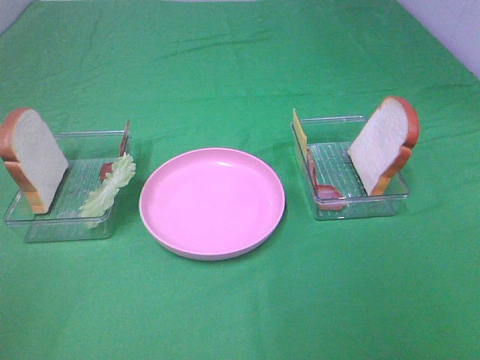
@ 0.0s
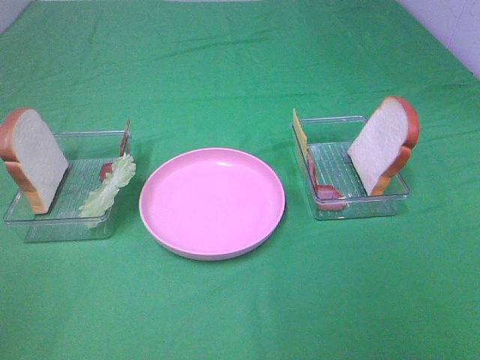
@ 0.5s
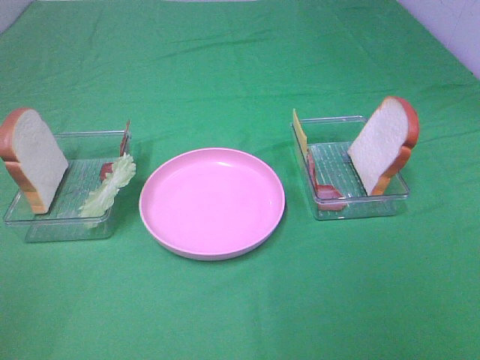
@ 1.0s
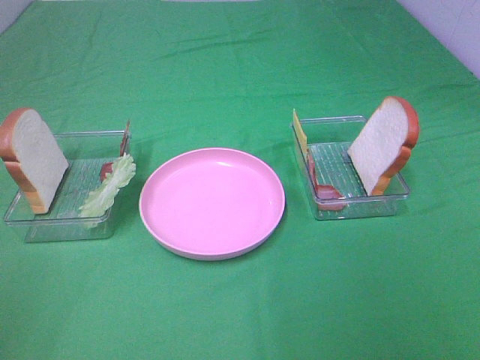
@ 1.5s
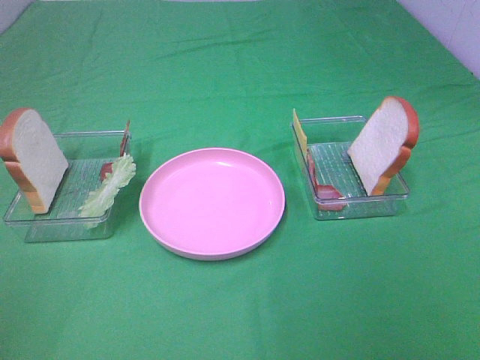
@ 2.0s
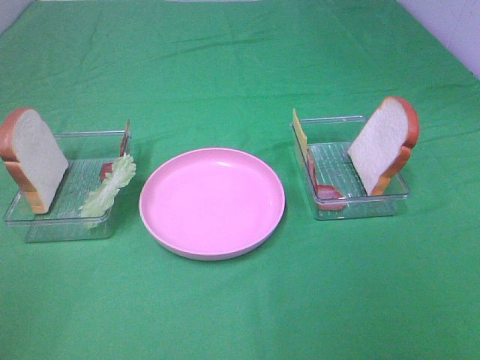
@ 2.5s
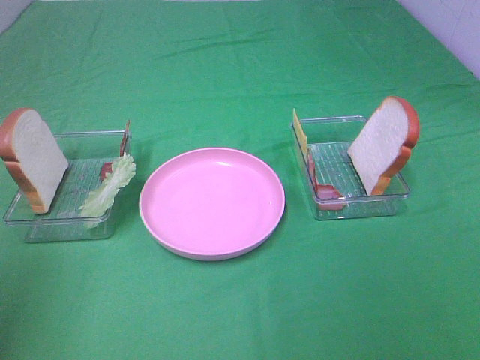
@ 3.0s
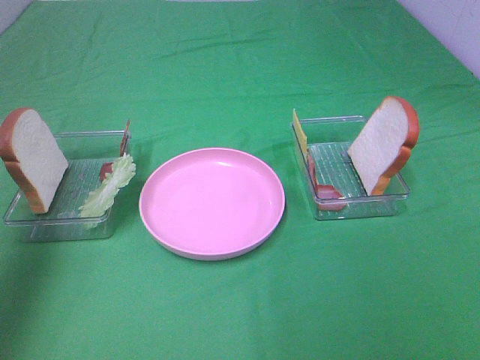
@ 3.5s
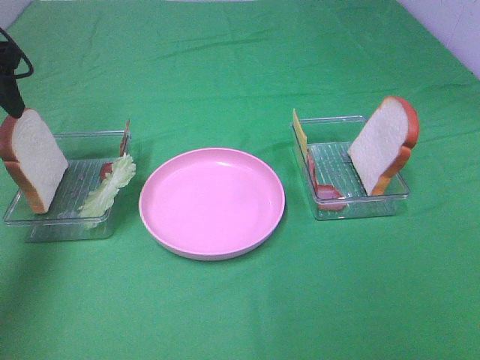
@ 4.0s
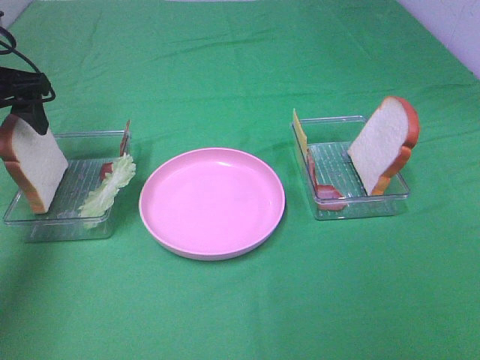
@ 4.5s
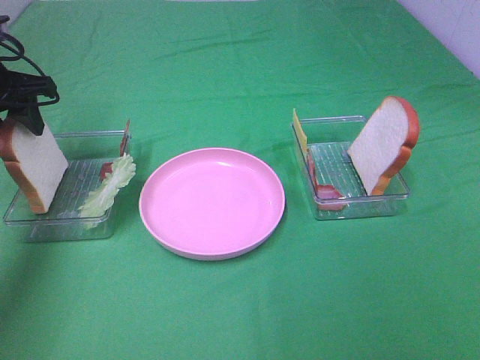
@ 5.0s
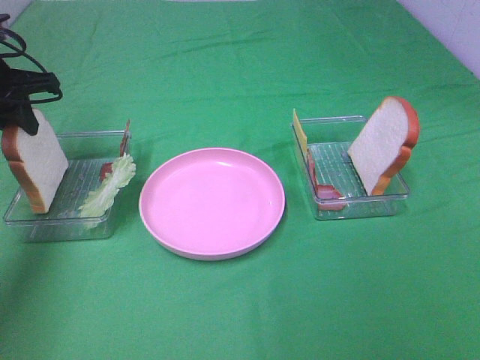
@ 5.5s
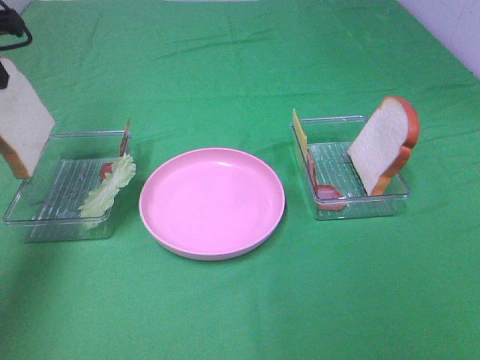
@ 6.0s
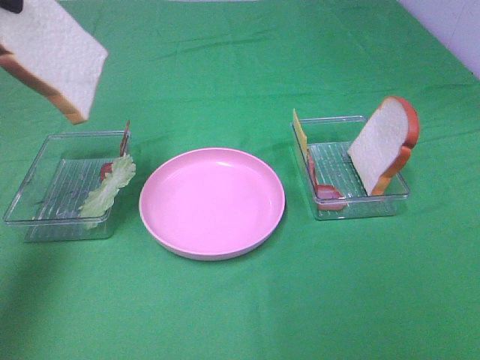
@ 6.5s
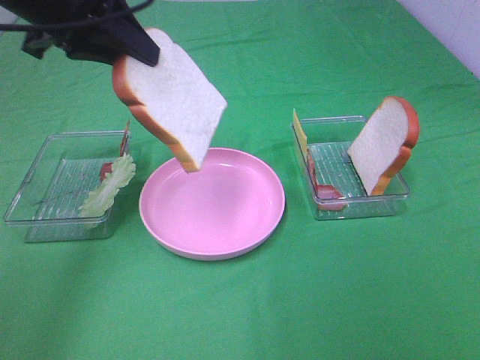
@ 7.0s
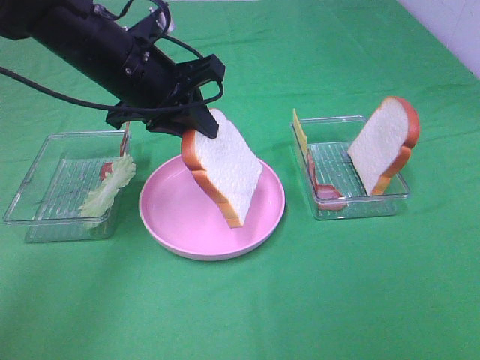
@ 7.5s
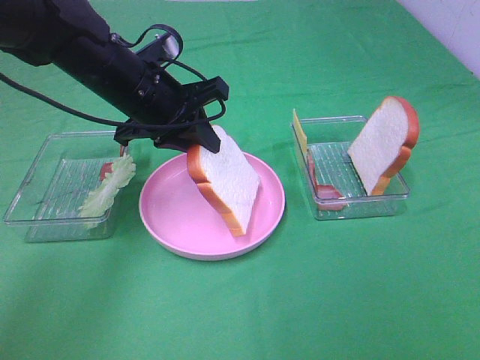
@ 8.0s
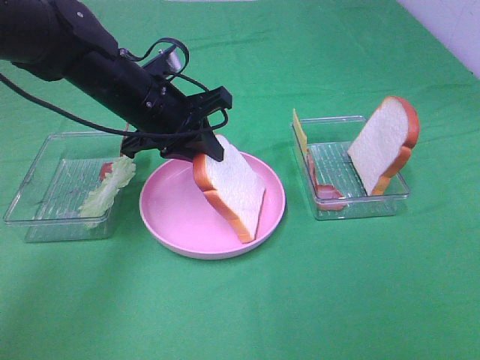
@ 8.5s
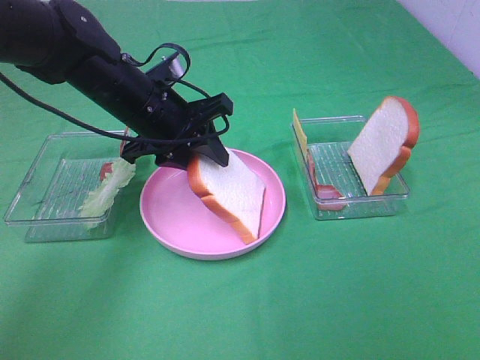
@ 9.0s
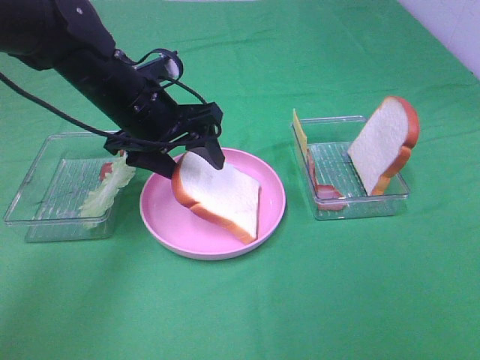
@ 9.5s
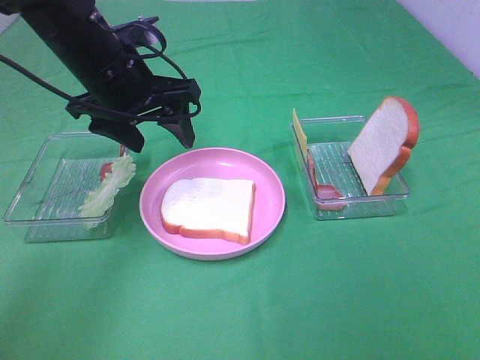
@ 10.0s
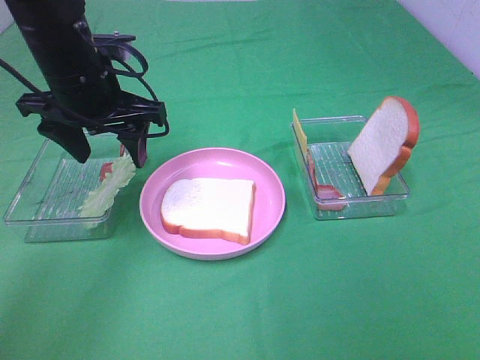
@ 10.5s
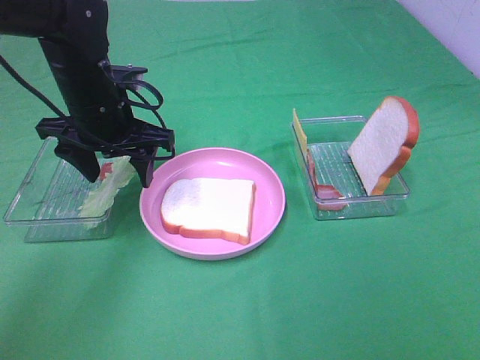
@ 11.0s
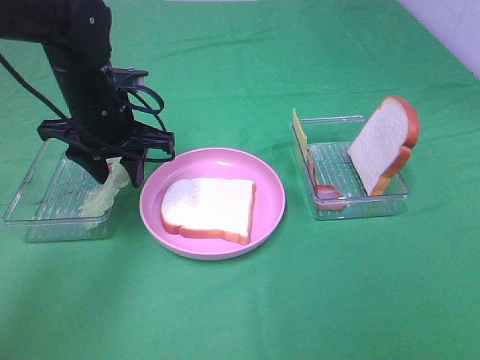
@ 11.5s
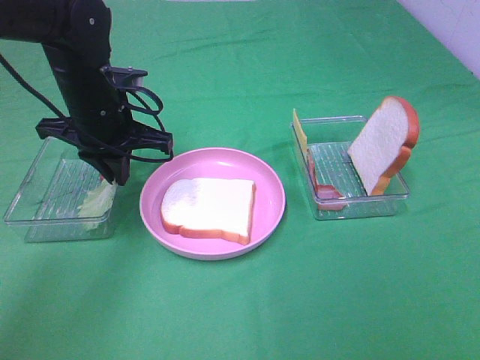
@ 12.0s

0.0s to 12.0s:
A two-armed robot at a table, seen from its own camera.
Task of the whole recording: Make sandwiches.
Step, 0.0s to 5.5s: Left hand:grab the bread slice.
Step, 6.0s to 9.5s: Left hand:place the bread slice on the plate.
0.0s to 2.0s: Both grippers stay put.
2.0s to 4.0s: The left gripper travels forward by approximately 35 cm.
4.0s to 6.0s: The left gripper moves about 5 cm downward and comes back, and closes its fingers.
6.0s to 8.0s: The left gripper is displaced to the right and downward by about 20 cm.
8.0s to 10.0s: The left gripper opens up.
10.0s to 12.0s: The left gripper shifts some 5 cm downward, and closes up.

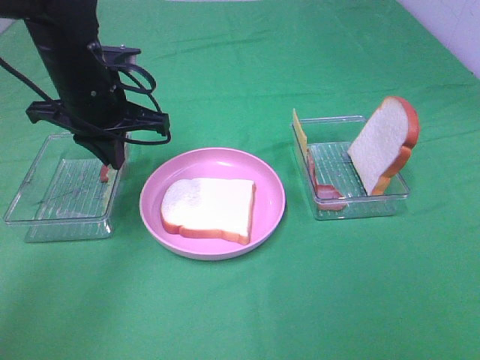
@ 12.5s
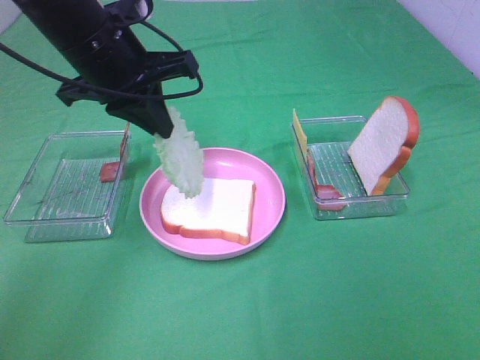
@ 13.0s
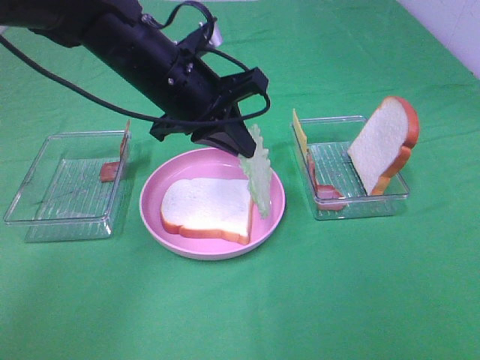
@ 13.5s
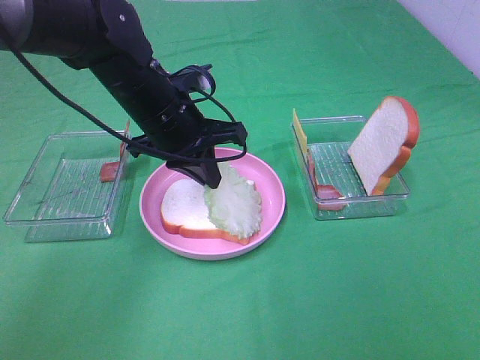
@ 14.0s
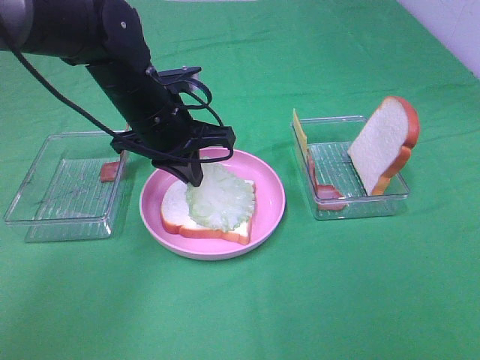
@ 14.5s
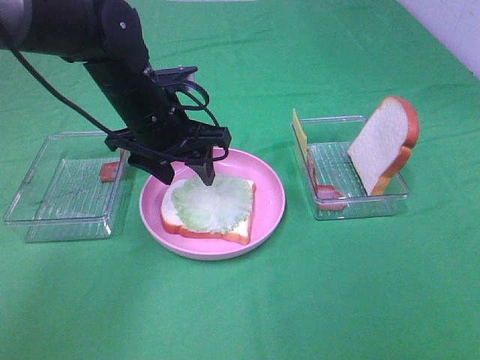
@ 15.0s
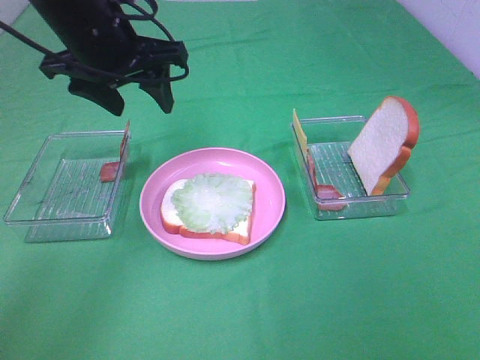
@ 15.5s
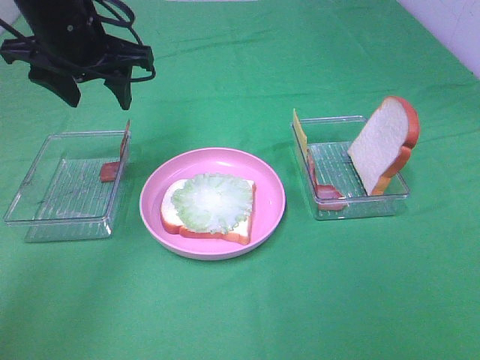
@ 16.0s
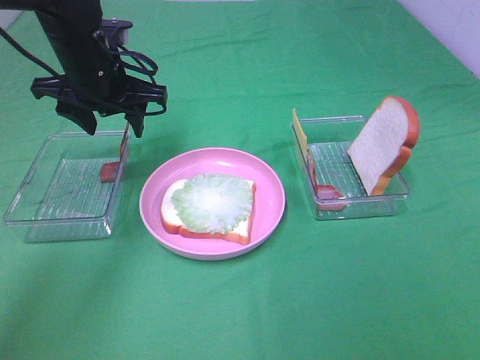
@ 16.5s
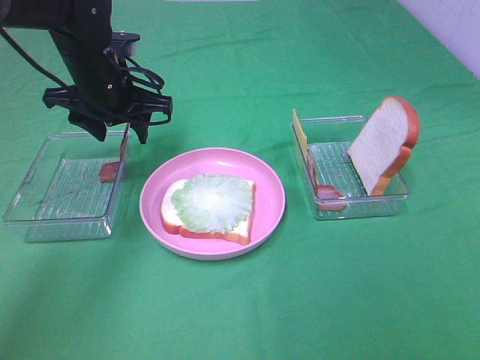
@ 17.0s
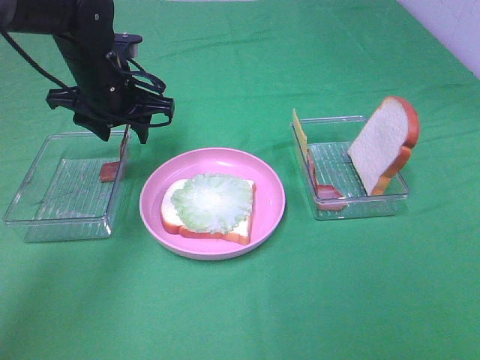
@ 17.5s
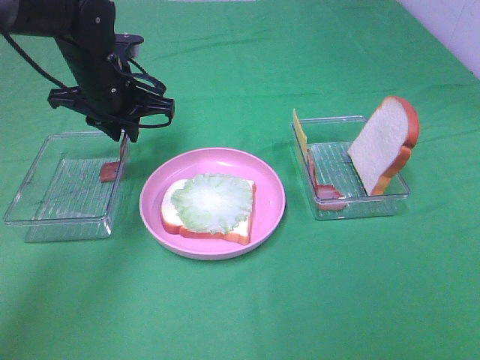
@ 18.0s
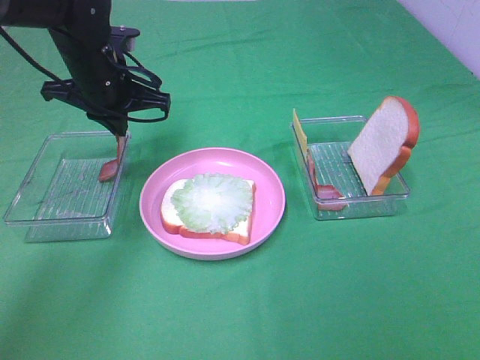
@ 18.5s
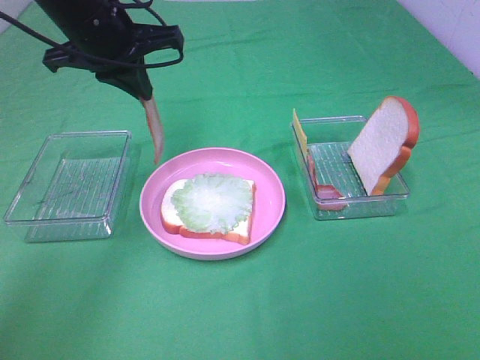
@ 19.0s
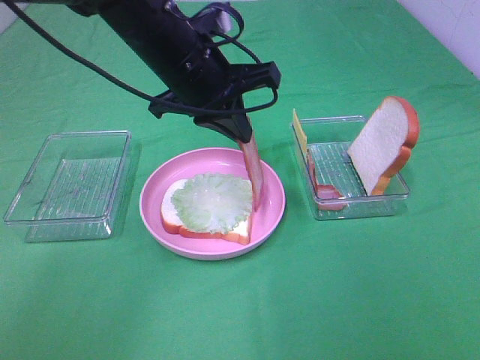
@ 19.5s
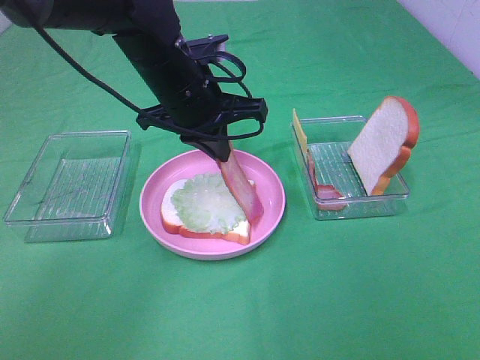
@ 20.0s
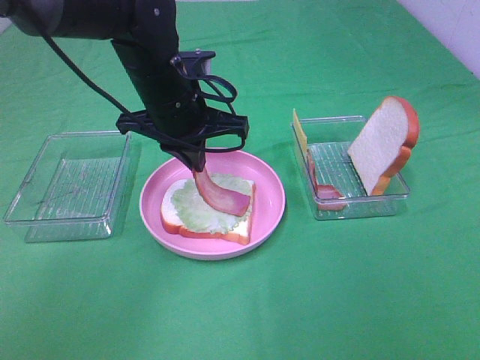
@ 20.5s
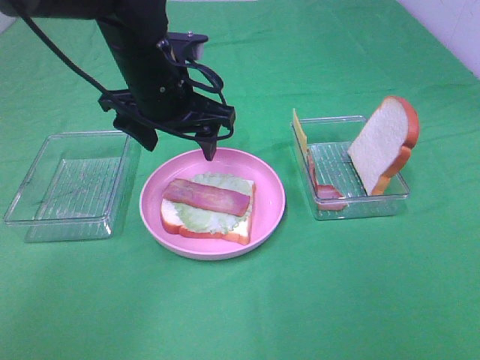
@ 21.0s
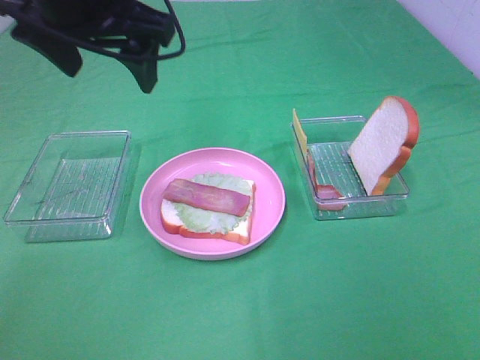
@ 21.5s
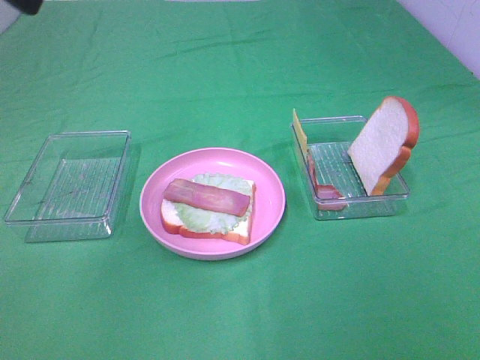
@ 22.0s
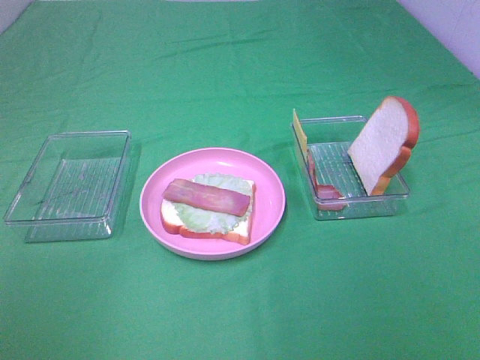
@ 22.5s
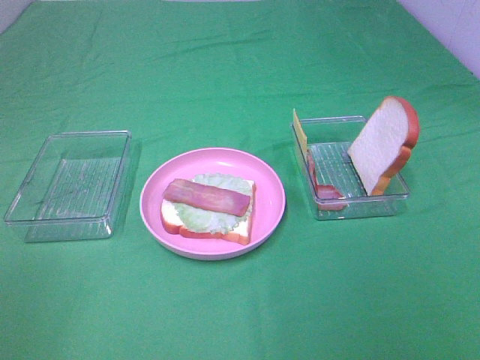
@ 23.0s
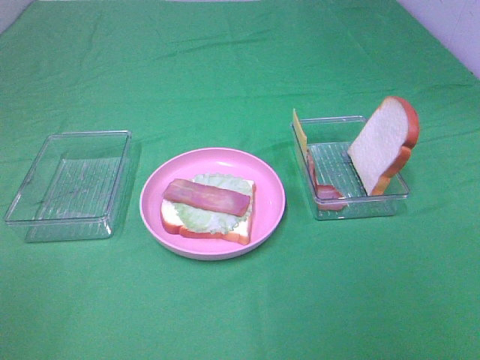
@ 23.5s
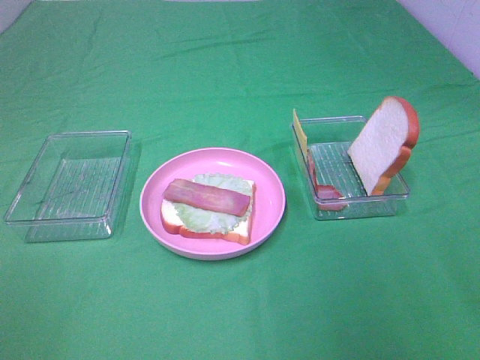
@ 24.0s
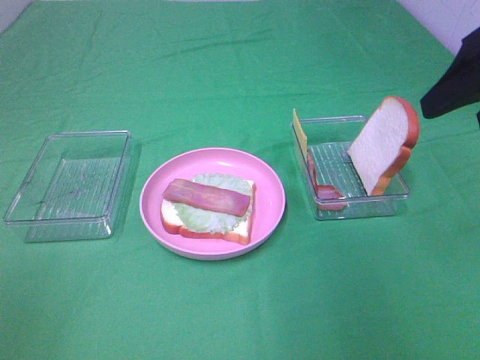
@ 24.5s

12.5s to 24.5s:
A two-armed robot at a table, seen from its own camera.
Task of the whole recording: Make sandwiches.
Step, 12.5s to 15.0s: Left hand:place the lettuce slice on the bread slice.
Step, 15.5s to 18.5s: Left hand:grab the bacon.
Step, 19.0s to 20.5s: Left hand:place bacon on lettuce slice.
12.5s to 14.5s: The left gripper shifts some 5 cm to the right.
14.5s to 16.5s: The left gripper is displaced to the left by some 5 cm, travels upward and back again, approximately 10 cm each way, and opens up.
16.5s to 18.5s: The left gripper closes.
18.5s to 20.5s: The left gripper moves to the right and backward, approximately 10 cm.
20.5s to 22.5s: The left gripper is displaced backward, to the left and upward by roughly 40 cm, and opens.
22.5s to 24.5s: The right gripper moves forward, about 25 cm.

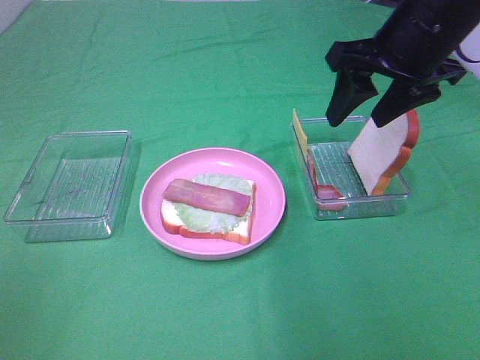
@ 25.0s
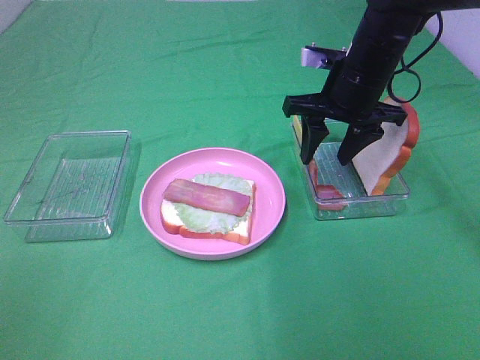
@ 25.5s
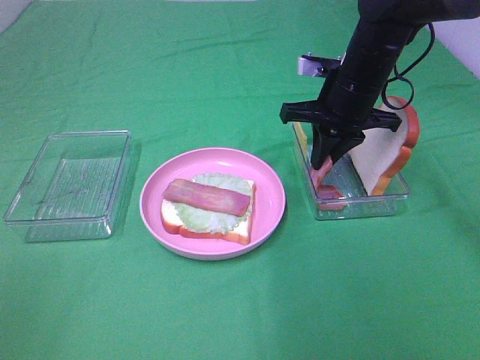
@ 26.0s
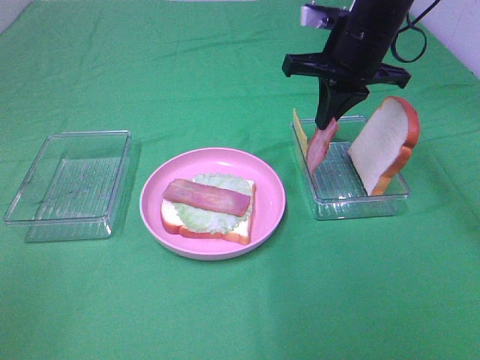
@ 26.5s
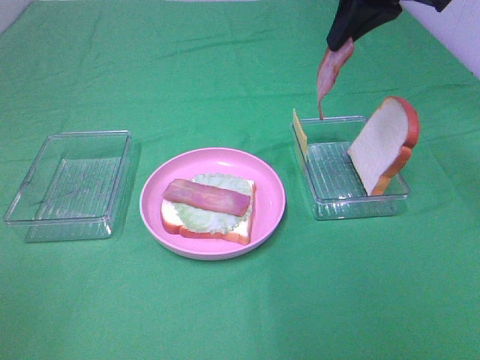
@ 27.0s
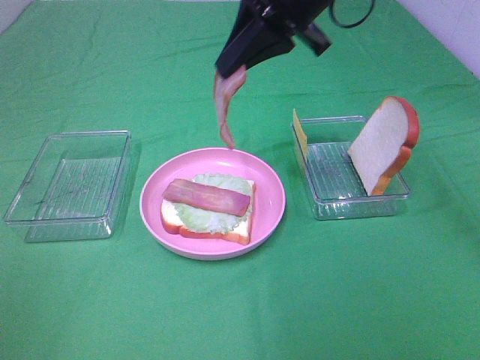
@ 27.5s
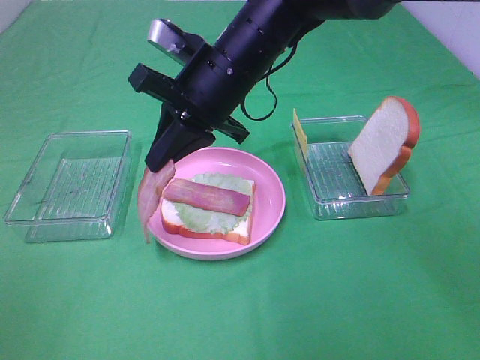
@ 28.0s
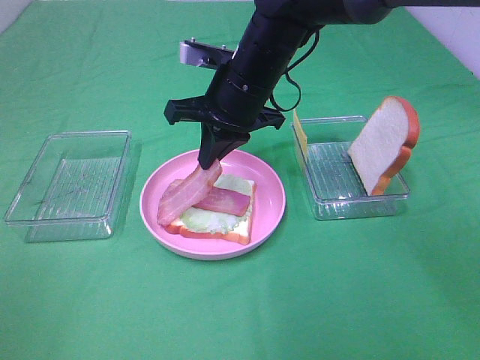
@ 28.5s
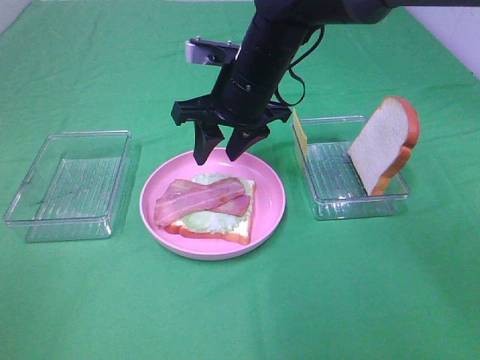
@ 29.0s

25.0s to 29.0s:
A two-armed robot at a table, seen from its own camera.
Task of the whole recording: Make sandwiches.
Step, 26.5s to 28.5s: Right hand:place bacon on bacon.
25.0s to 27.0s: The right gripper travels upward by approximately 10 cm, and closes its fingers.
27.0s to 29.0s: The right gripper is displaced downward and to the left by about 20 cm, and opens up.
